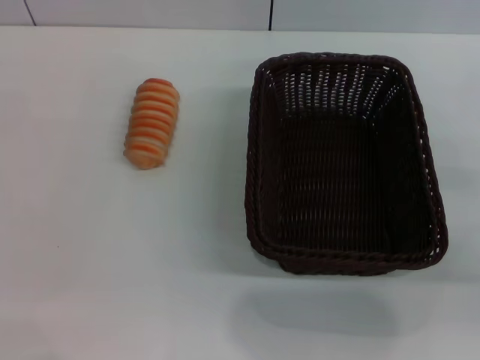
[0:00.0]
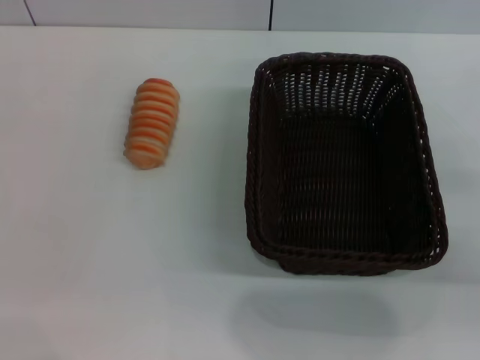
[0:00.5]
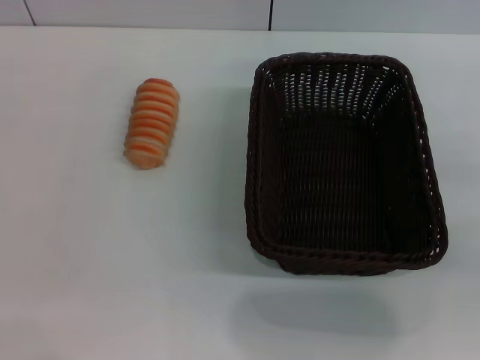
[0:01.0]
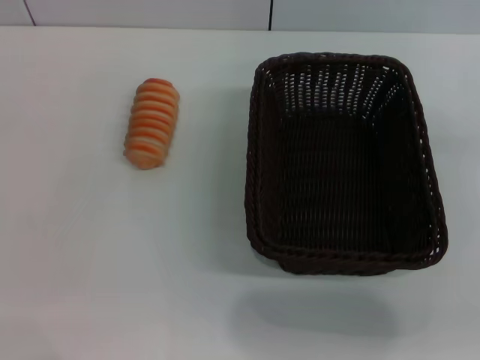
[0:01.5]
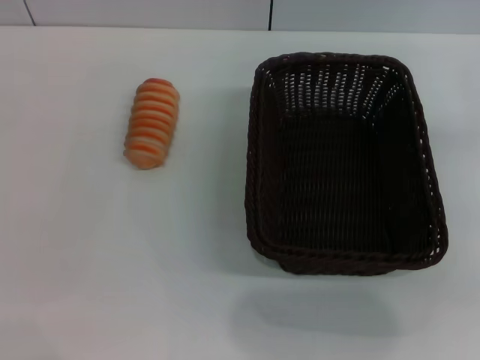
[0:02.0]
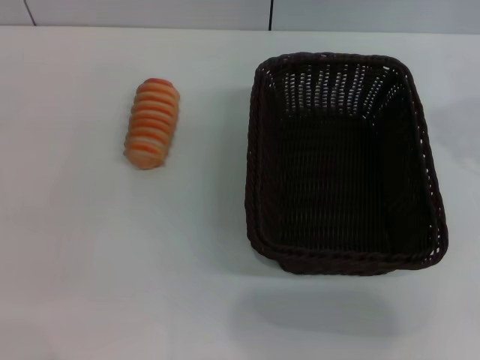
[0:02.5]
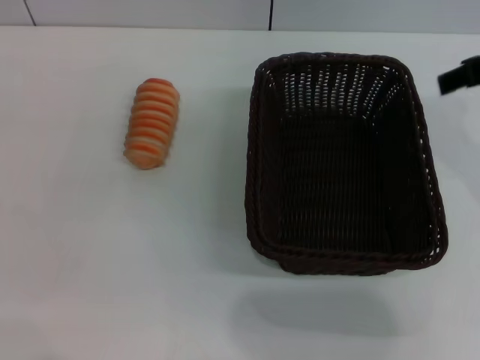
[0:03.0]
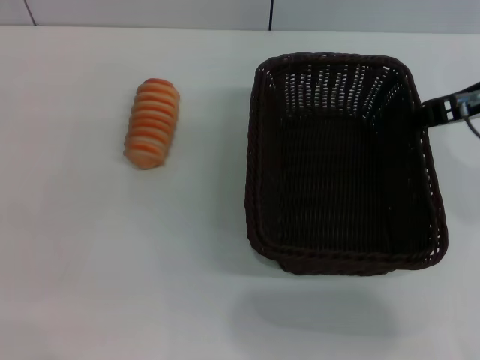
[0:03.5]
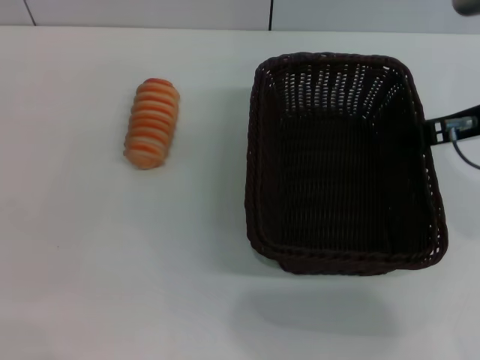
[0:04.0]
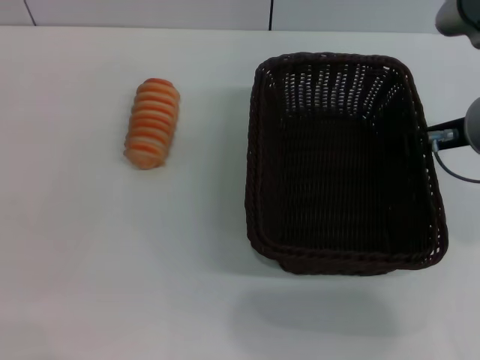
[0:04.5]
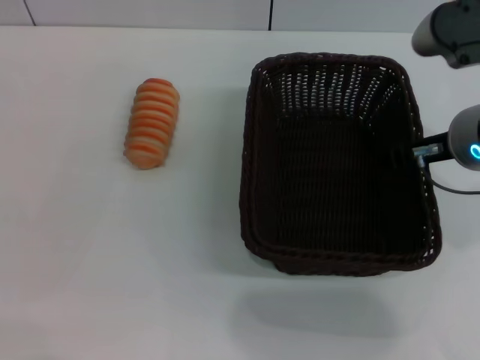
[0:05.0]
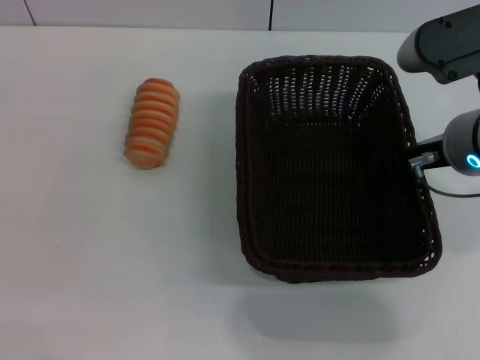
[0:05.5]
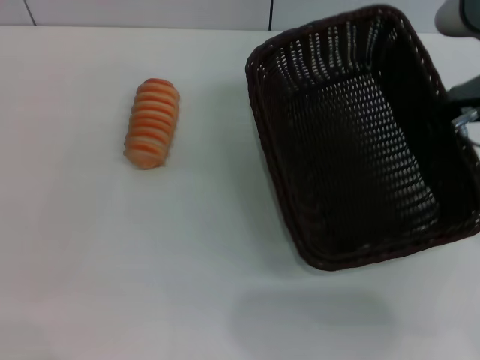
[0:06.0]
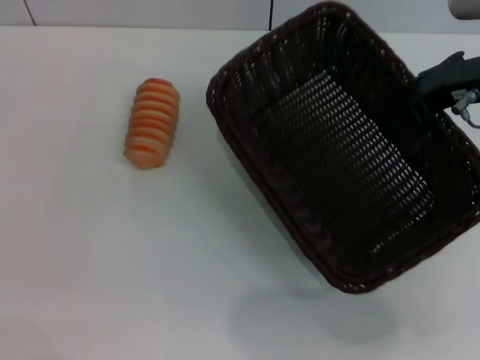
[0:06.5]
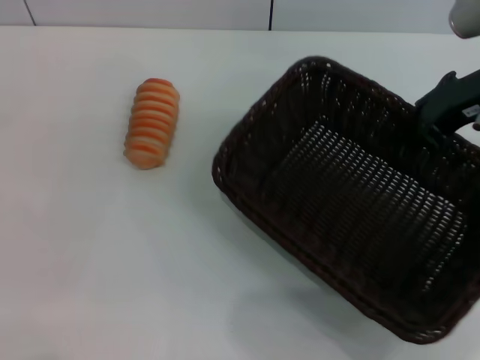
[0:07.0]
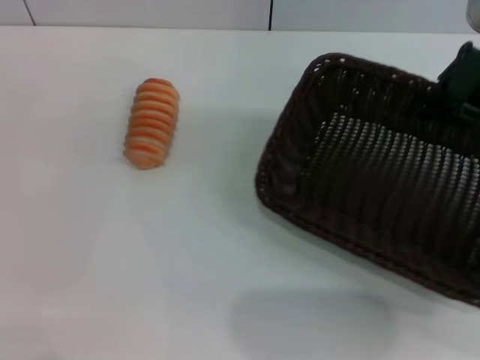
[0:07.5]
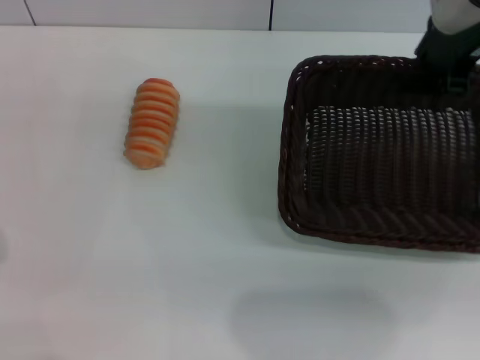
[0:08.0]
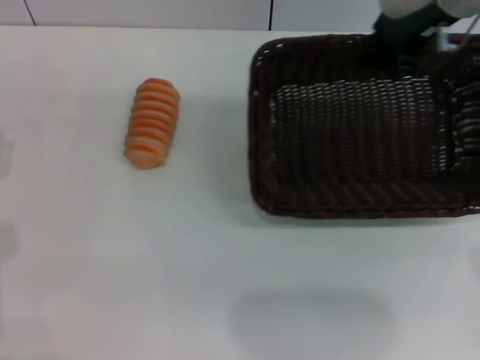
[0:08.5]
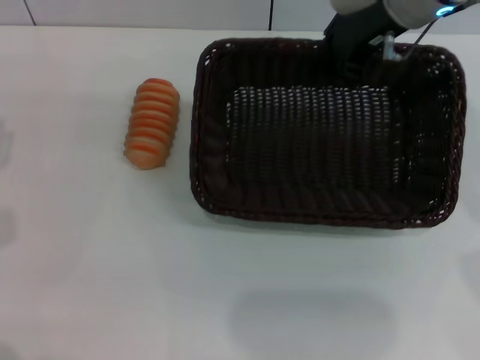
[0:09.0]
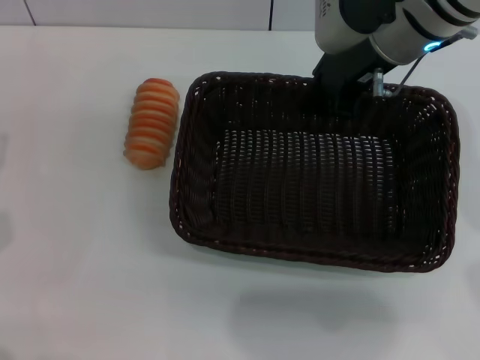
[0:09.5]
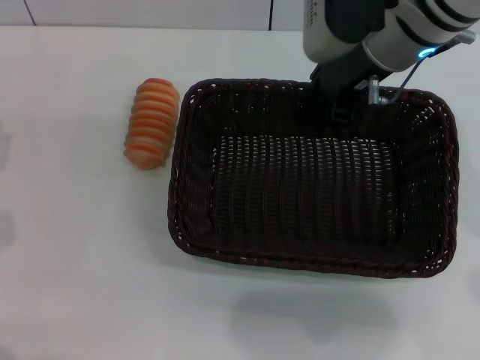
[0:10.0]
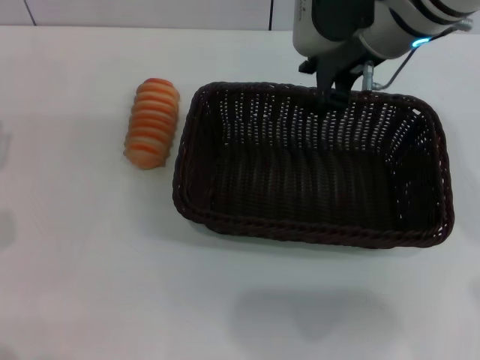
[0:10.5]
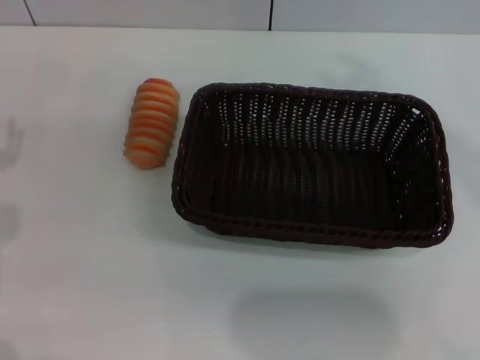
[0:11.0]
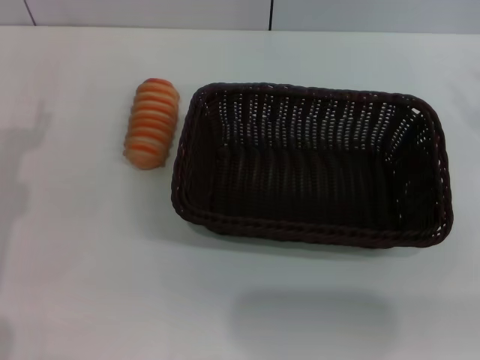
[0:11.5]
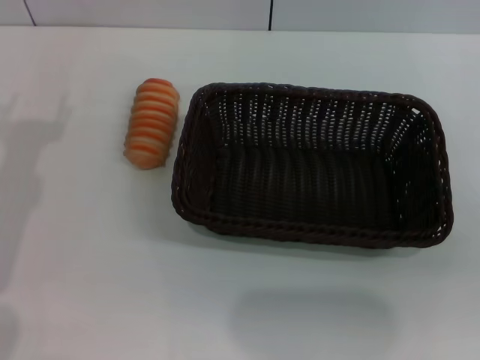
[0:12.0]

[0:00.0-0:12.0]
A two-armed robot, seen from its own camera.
Step, 0:00.0 to 0:06.0: Pick up the dark basket with the right gripper.
Step, 0:06.5 to 0:10.0: Place the dark basket in the center of view with the right gripper.
0:02.0 to 0:04.0: The right gripper shifts approximately 15 cm to the left and downward.
0:04.0 to 0:06.0: The right gripper closes its fingers.
0:06.0 to 0:08.0: The left gripper is displaced to the right by about 5 cm, while the right gripper goes some 10 cm forward.
0:08.0 to 0:10.0: The right gripper heads to the left, covering about 10 cm.
0:10.0 to 0:12.0: The right gripper shifts roughly 30 cm to the right and backward, and opens; the left gripper moves upward, about 5 cm.

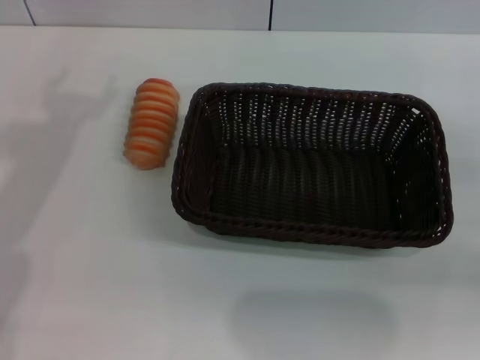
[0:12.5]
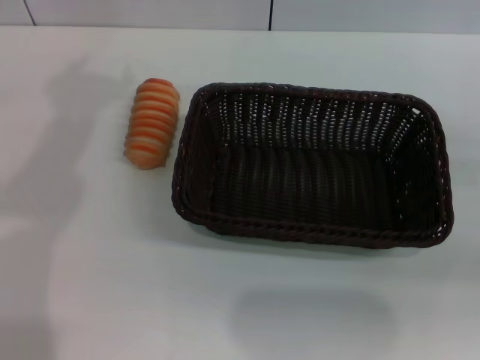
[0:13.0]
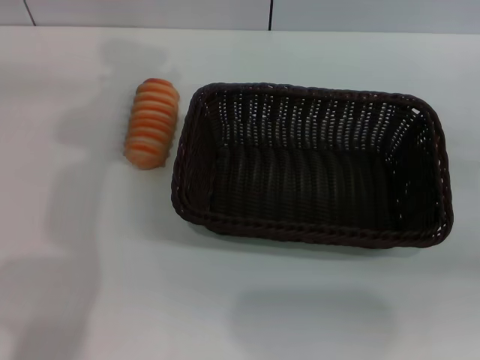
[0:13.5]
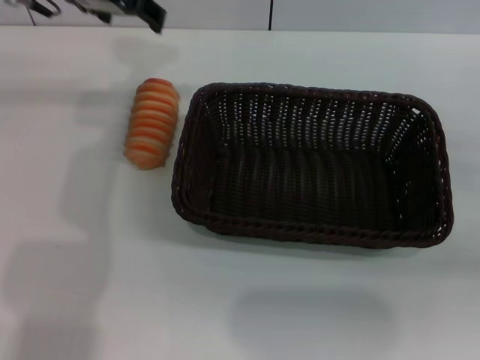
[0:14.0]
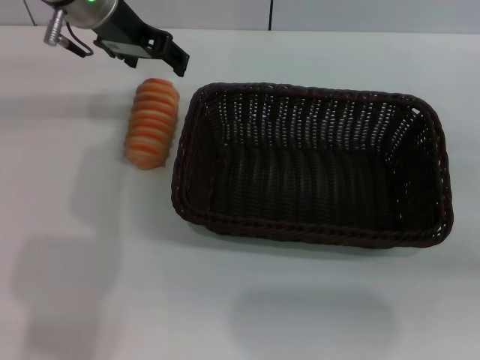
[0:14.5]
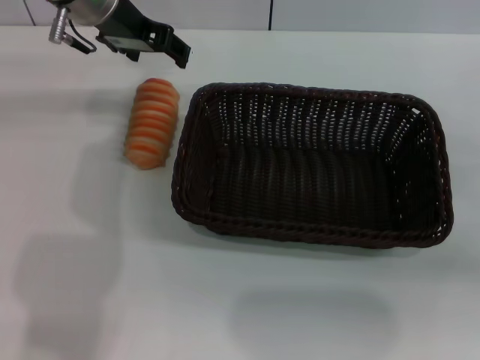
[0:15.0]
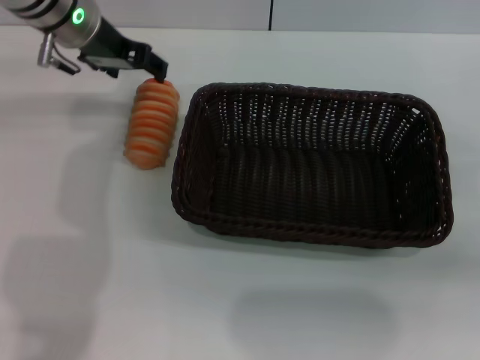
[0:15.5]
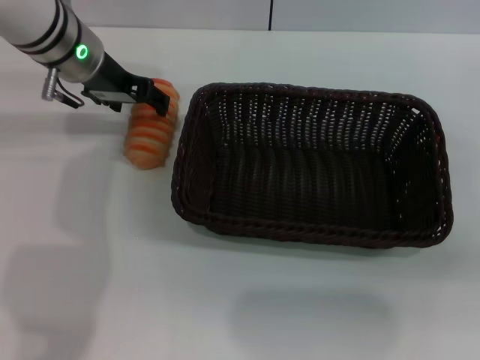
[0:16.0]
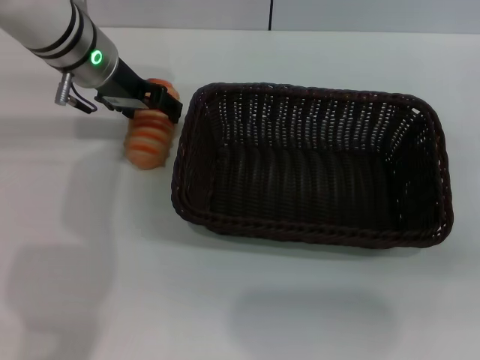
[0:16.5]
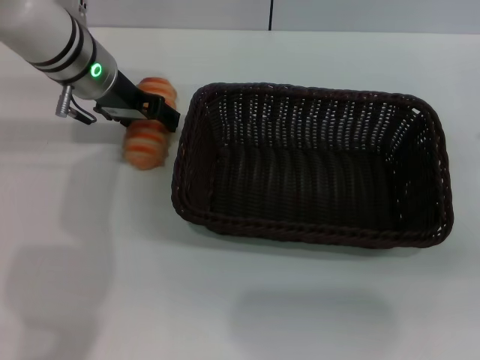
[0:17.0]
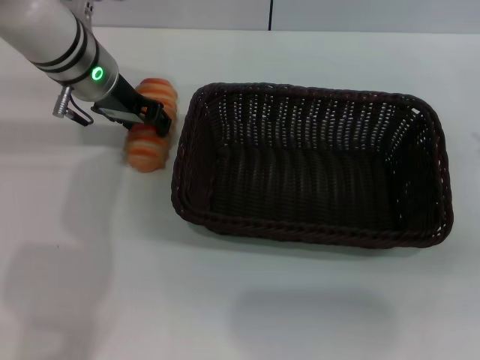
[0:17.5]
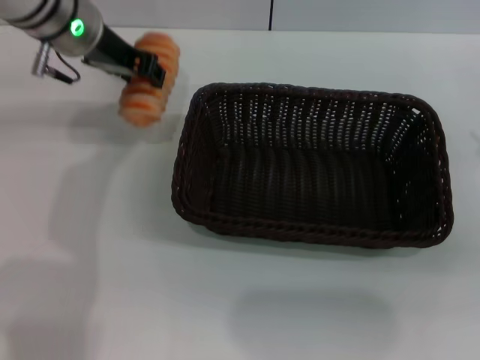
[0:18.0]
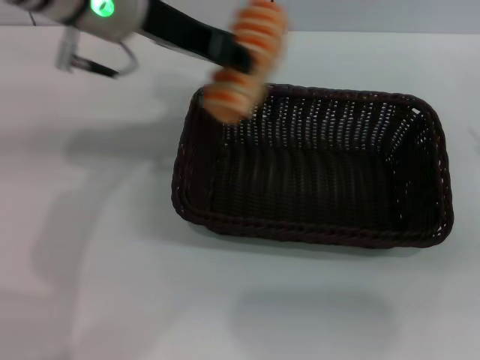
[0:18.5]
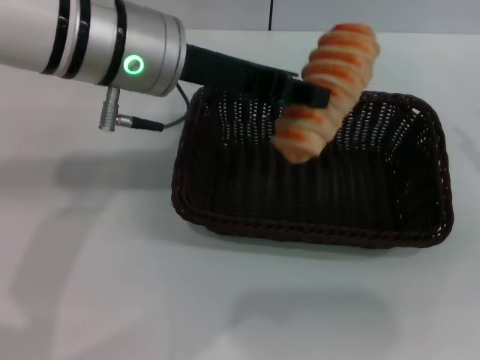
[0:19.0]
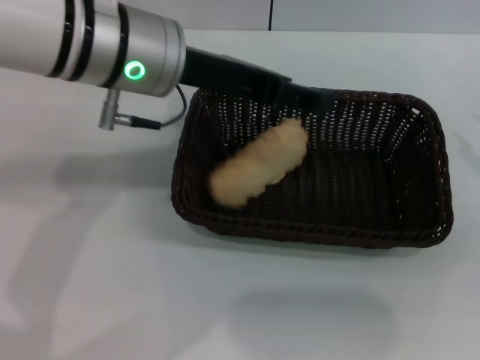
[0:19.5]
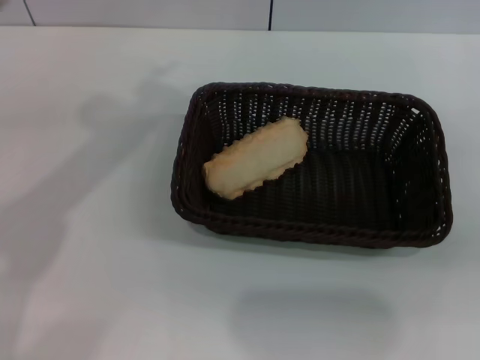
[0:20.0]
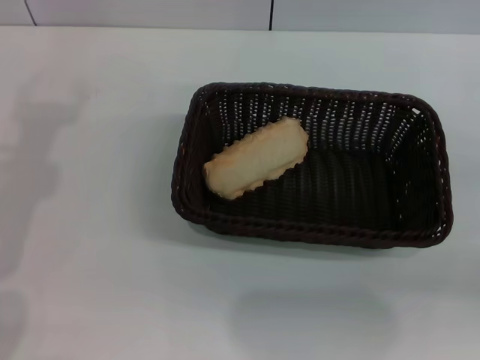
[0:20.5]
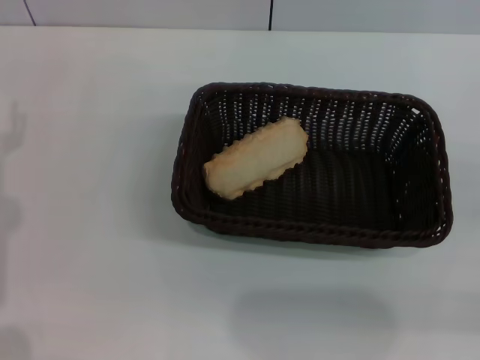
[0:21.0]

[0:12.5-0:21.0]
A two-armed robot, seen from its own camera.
Step, 0:12.5 to 0:18.0: Pick up the long bread with the left gripper.
Step, 0:18.5 to 0:19.0: Place the long bread into the dark basket with the left gripper.
0:12.5 to 0:14.5: The left gripper shifts about 20 cm forward and to the right.
0:14.5 to 0:16.5: The left gripper shifts some 5 cm downward.
0:16.5 to 0:19.0: The left gripper heads backward, upward and to the right, covering about 15 cm, and closes its fingers.
0:19.0 to 0:21.0: The right gripper is displaced to the right and backward by approximately 10 cm, while the left gripper moves to the left and backward, approximately 20 cm, and opens.

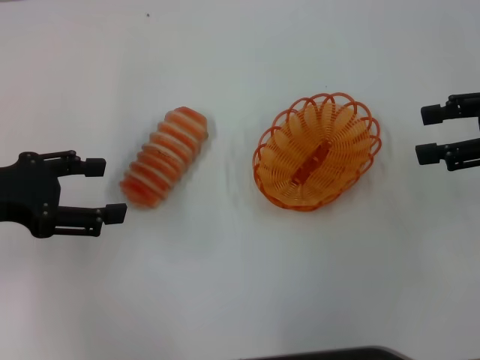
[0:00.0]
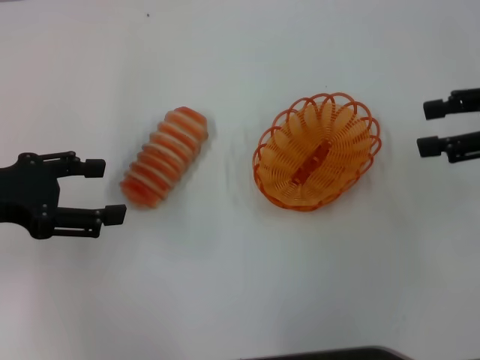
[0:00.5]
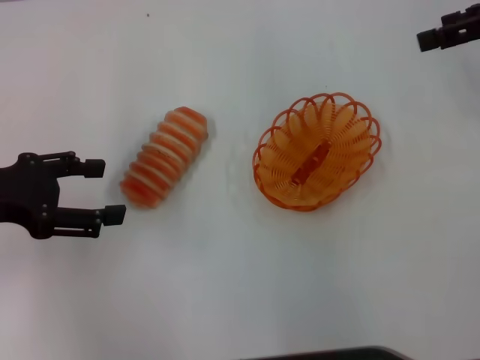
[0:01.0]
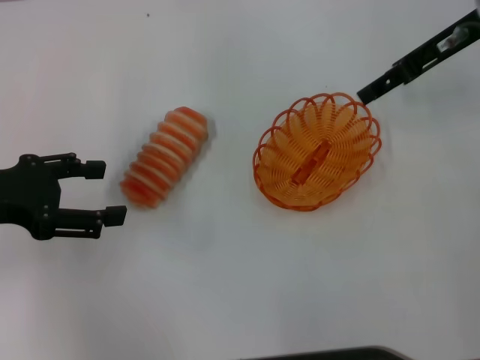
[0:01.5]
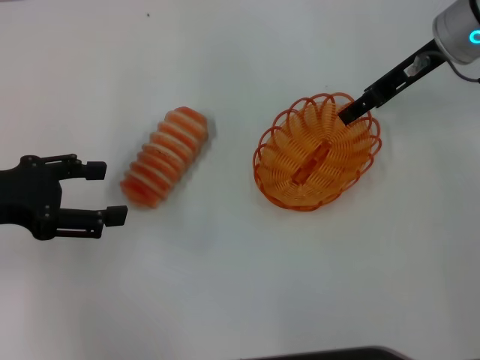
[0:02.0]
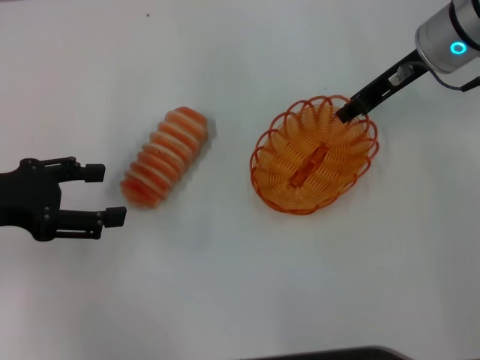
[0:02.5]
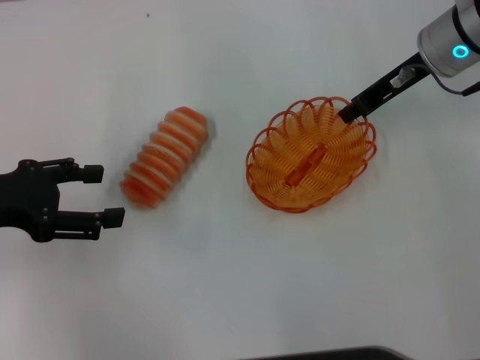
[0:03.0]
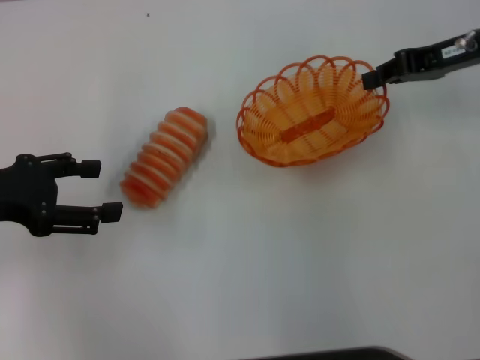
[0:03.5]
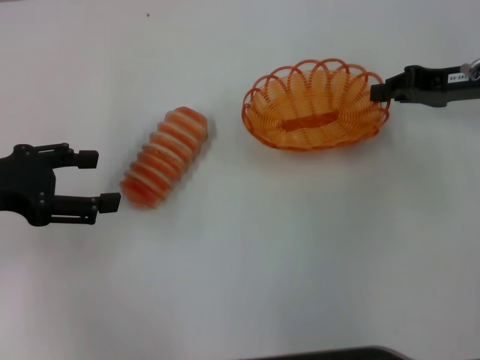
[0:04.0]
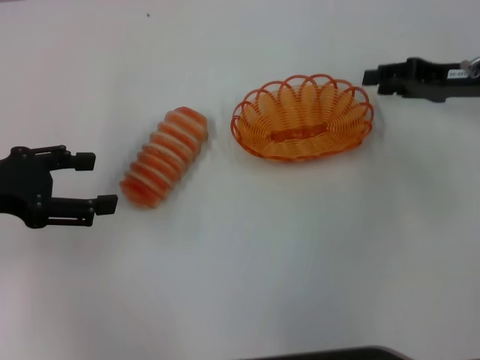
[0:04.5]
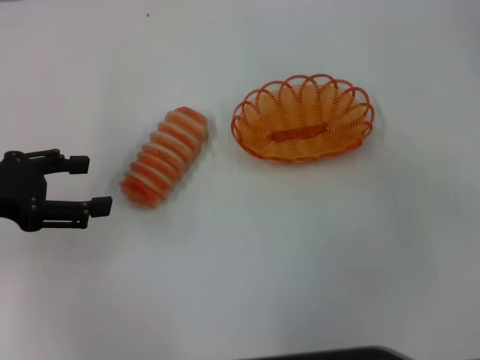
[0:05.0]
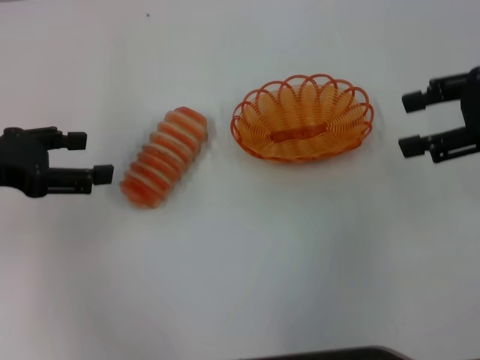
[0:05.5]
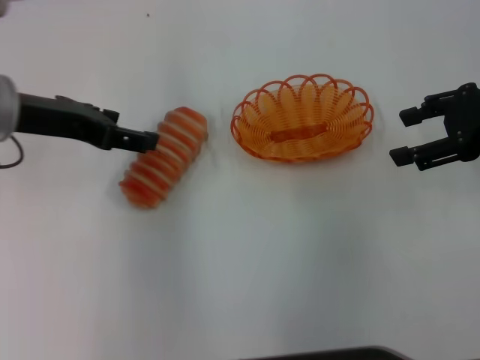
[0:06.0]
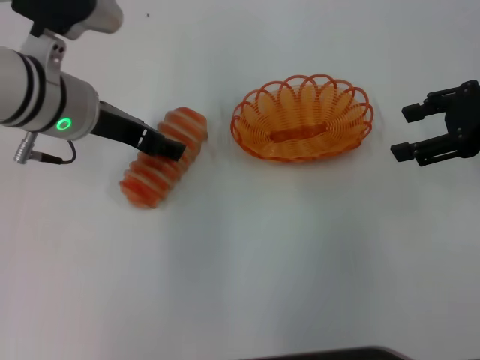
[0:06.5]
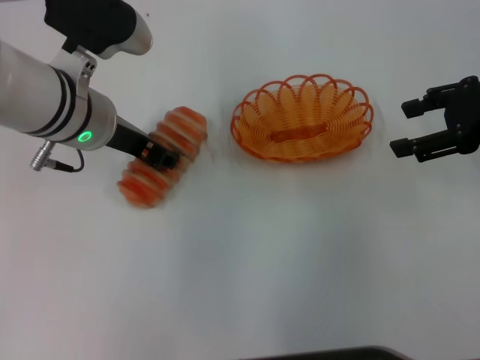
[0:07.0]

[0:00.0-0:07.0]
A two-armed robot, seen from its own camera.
Step, 0:00.0 to 0:03.5: Pick up the basket with the right gripper.
Step, 0:04.0 to 0:04.5: Place the basket in the center of view with the right gripper.
0:00.0 to 0:02.0: The right gripper goes about 15 cm forward and to the left.
0:02.0 to 0:03.5: The right gripper moves to the right, approximately 5 cm, and closes.
0:03.5 to 0:05.0: The right gripper goes approximately 10 cm to the right and backward, and opens up.
0:05.0 to 0:07.0: The left gripper travels to the right and forward by roughly 20 cm.
